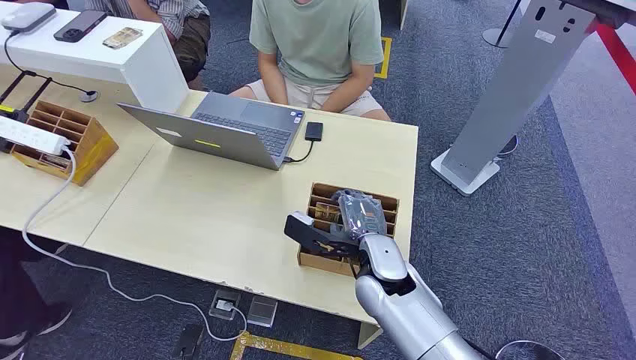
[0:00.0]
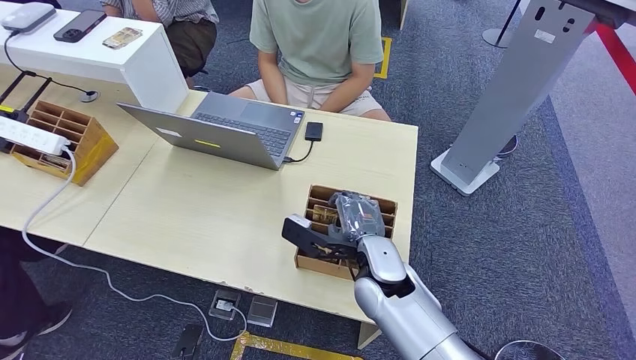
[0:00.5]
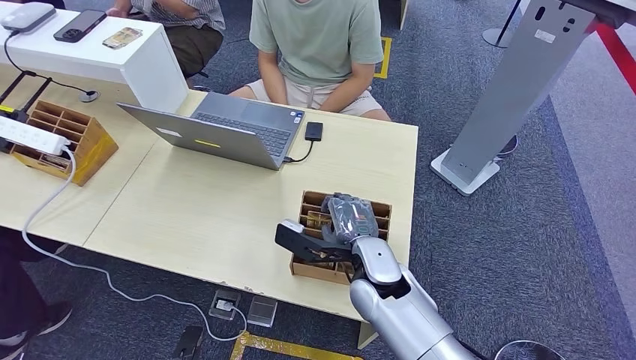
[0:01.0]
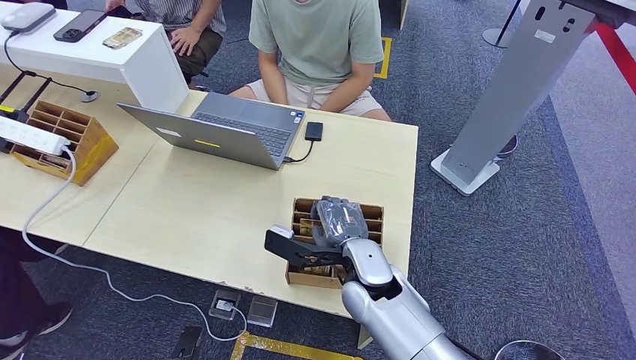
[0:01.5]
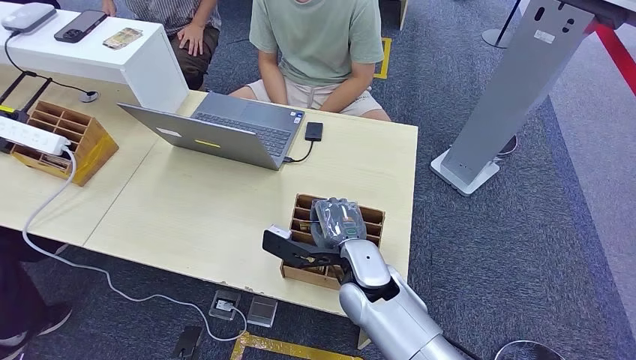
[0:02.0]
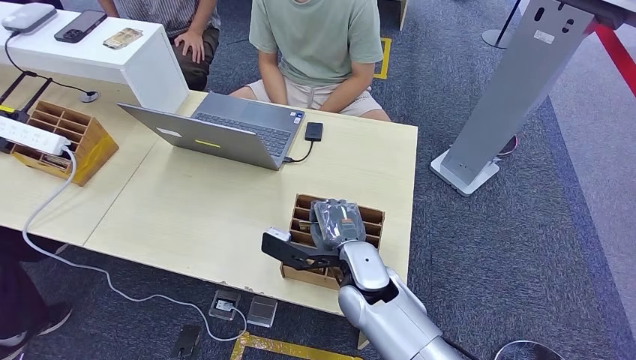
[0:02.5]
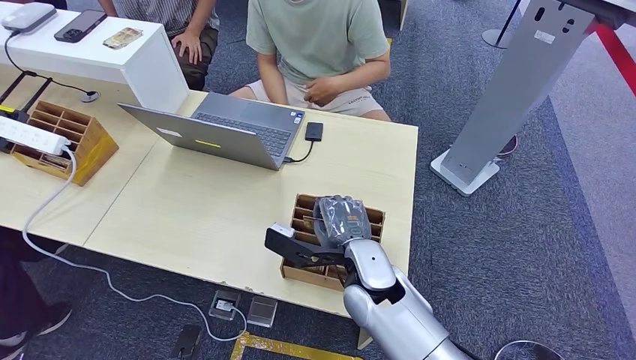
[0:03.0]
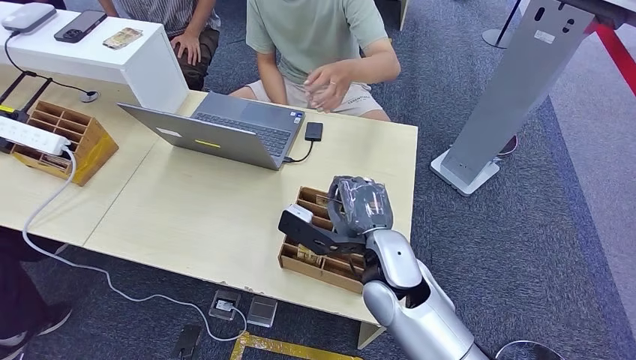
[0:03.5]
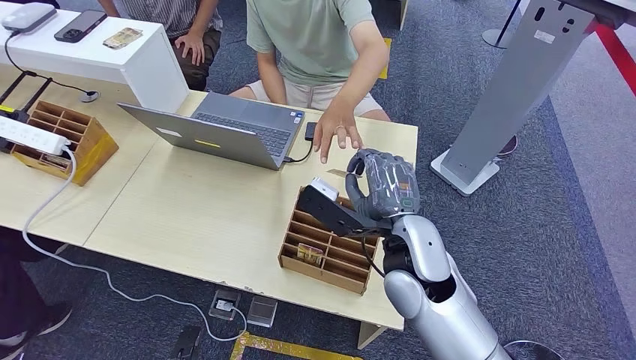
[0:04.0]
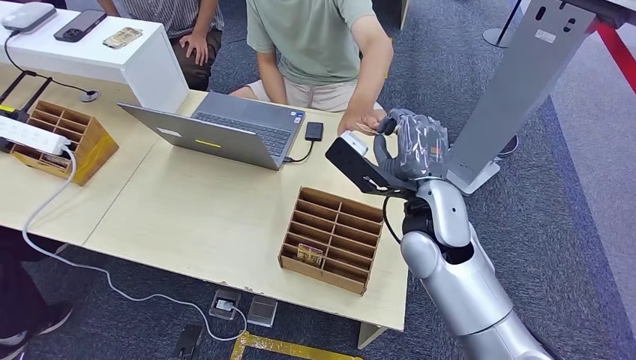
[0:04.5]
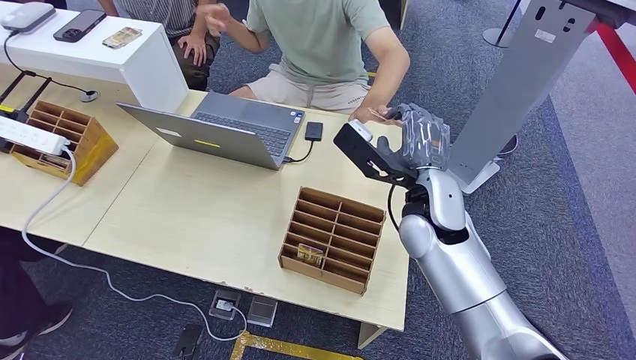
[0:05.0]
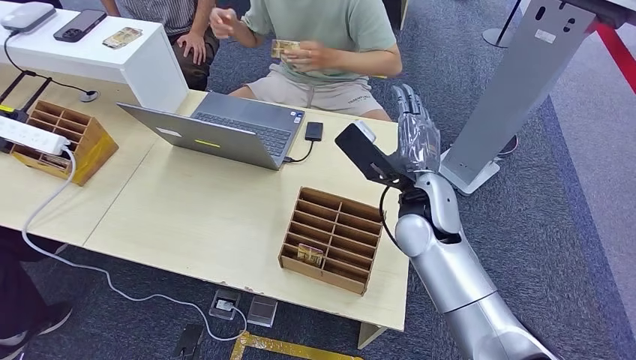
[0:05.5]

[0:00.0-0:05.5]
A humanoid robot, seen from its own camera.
Step, 0:00.0 to 0:03.0: Pick up the key card from the card box.
Step, 0:04.0 to 0:05.5: Hand the key card to the target.
0:02.0 to 0:03.5: The right hand changes place by roughly 5 cm.
0:03.5 to 0:05.5: The right hand shifts roughly 10 cm forward and upward.

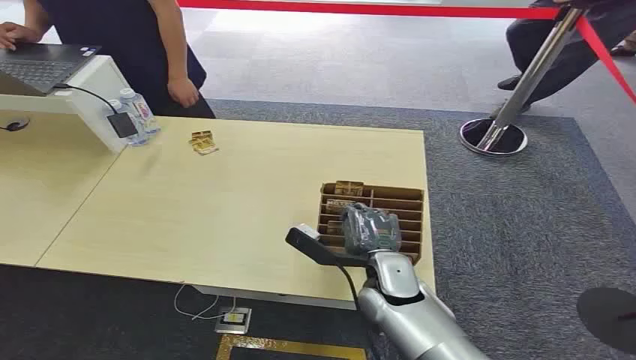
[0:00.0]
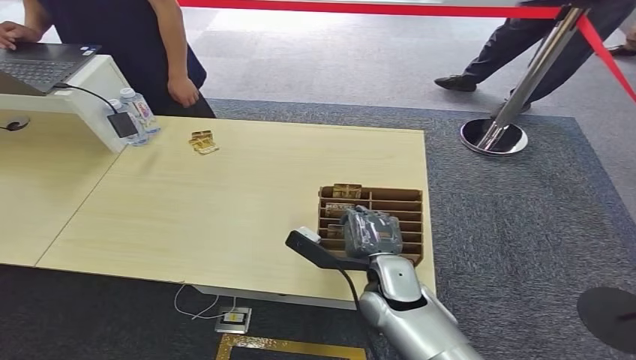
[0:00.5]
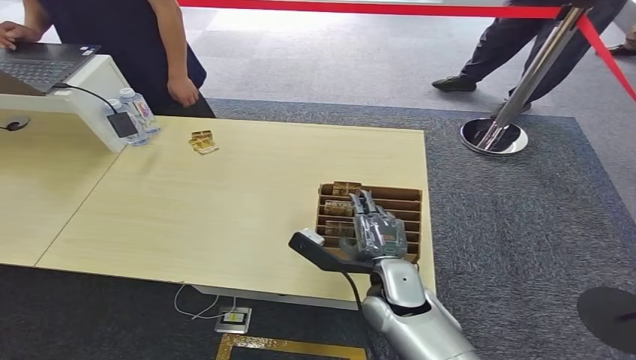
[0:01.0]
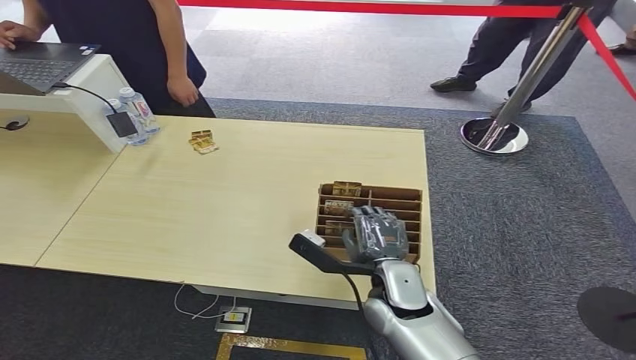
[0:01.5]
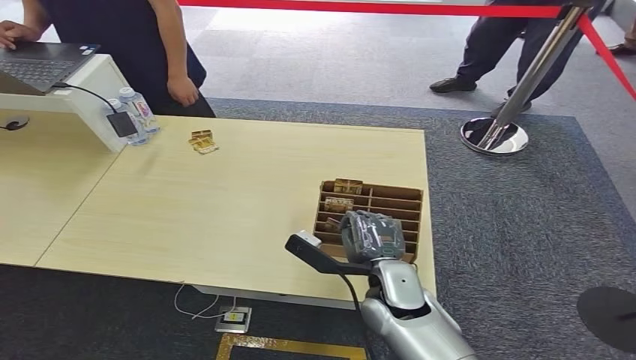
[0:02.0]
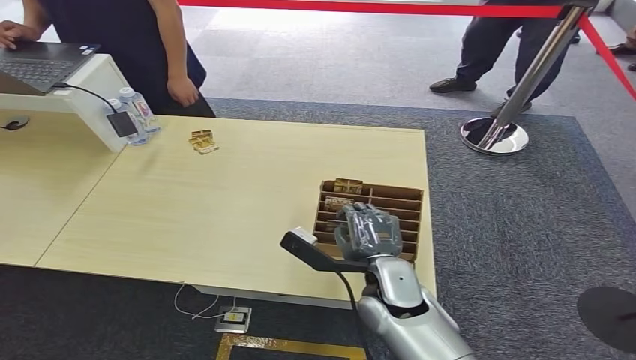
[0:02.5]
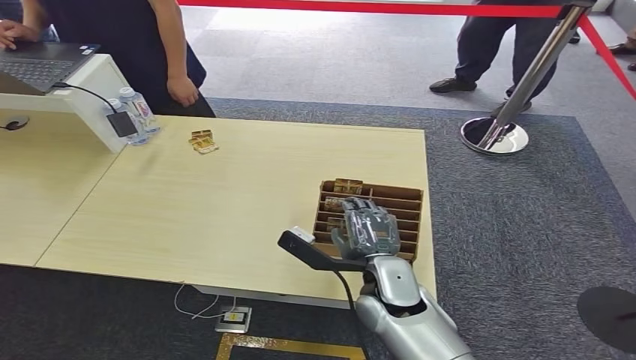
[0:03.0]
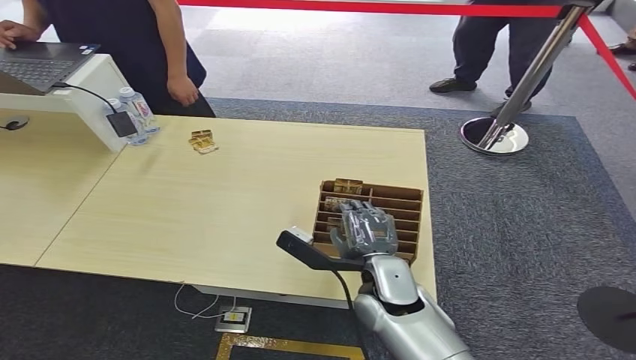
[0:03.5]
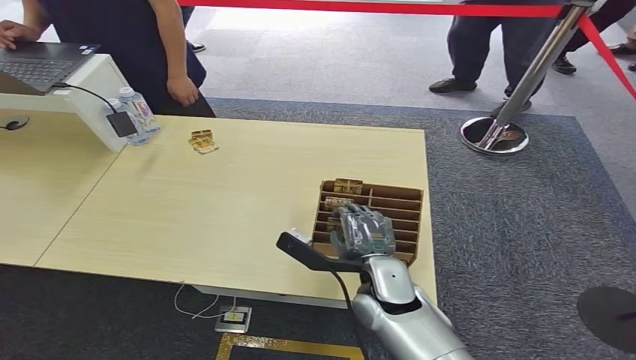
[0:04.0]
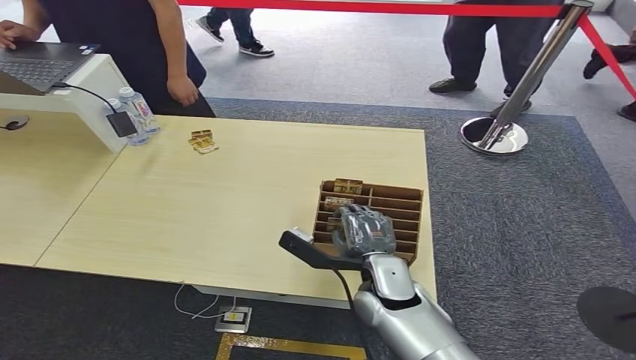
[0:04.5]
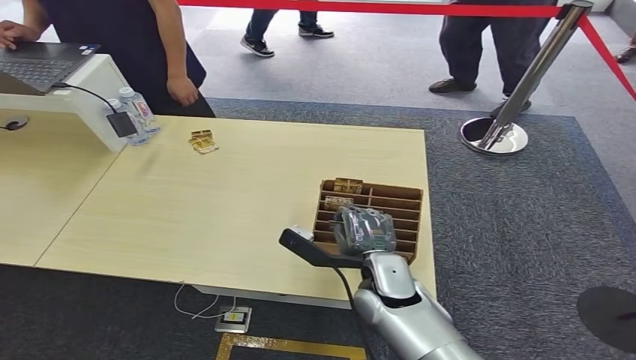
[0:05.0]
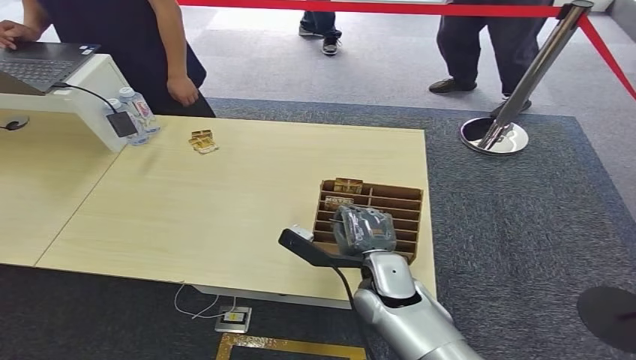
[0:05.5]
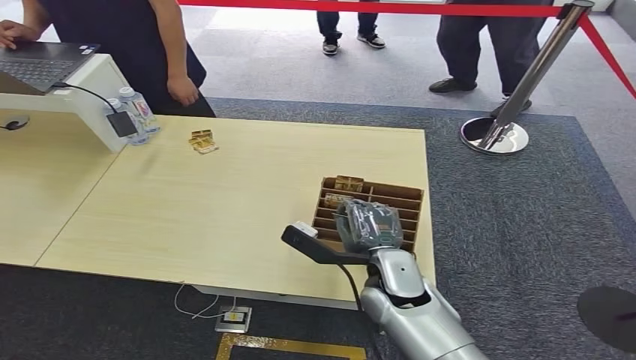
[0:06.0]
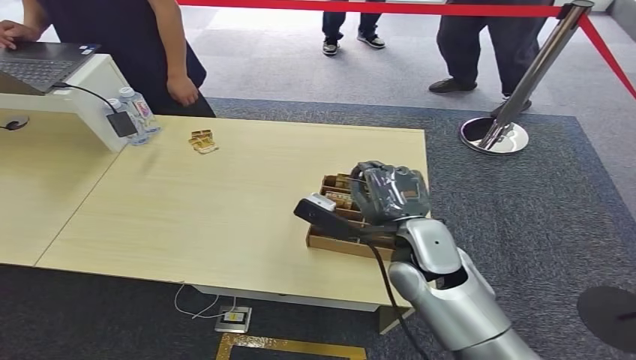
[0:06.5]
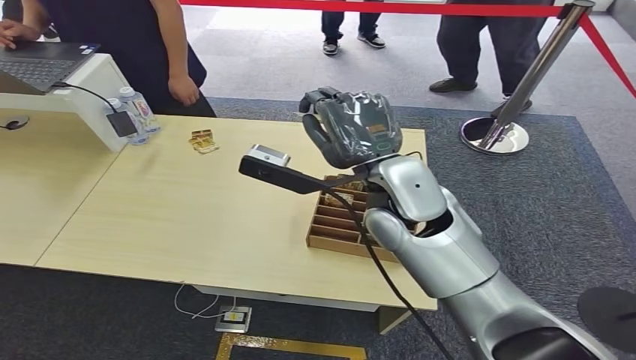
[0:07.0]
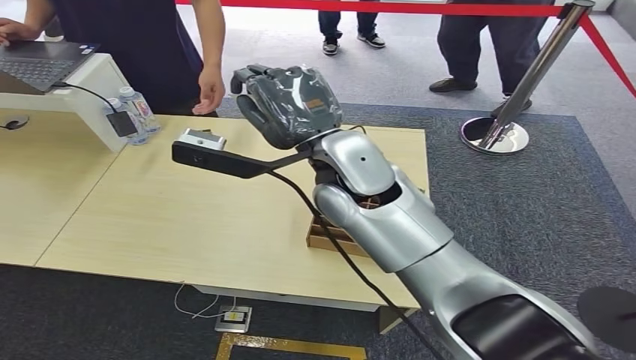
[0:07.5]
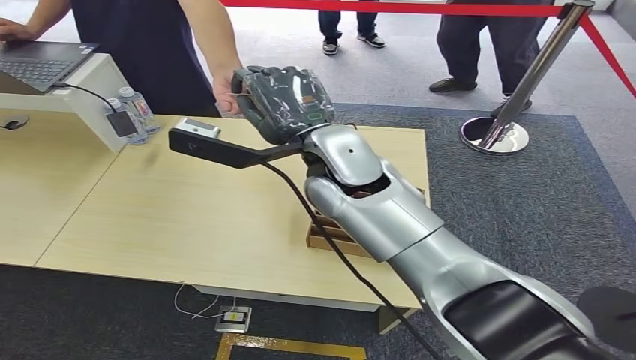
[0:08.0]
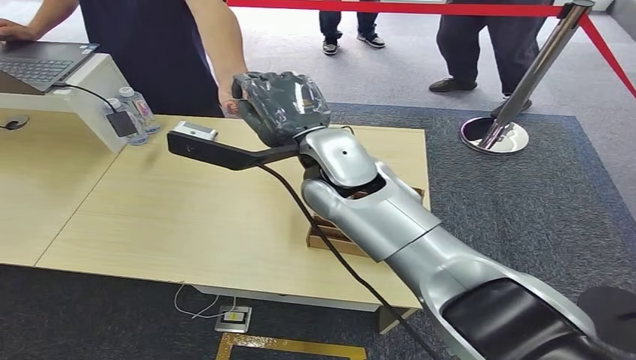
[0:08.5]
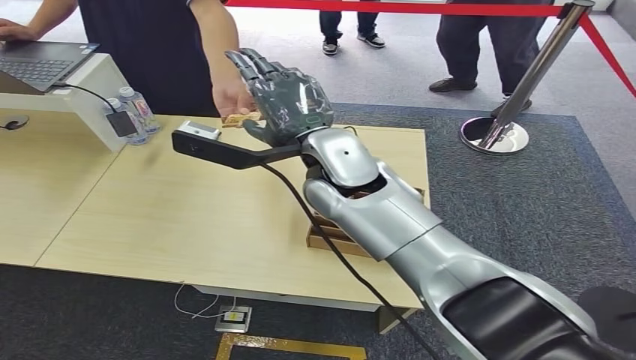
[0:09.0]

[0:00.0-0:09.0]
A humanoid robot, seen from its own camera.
Step, 0:00.0 to 0:06.5: Pick up the key card from the card box.
Step, 0:07.0 to 0:09.0: Hand the key card to the target.
0:02.0 to 0:04.5: The hands move only a little.
